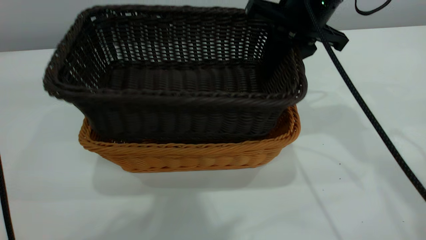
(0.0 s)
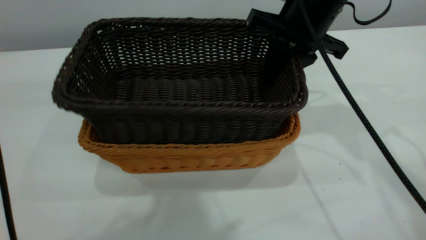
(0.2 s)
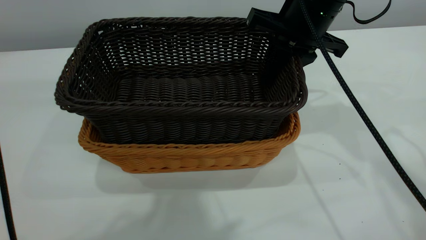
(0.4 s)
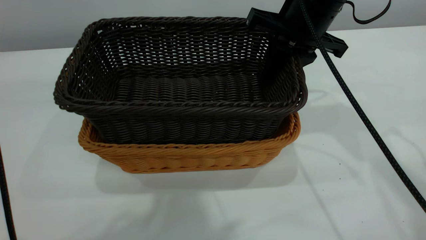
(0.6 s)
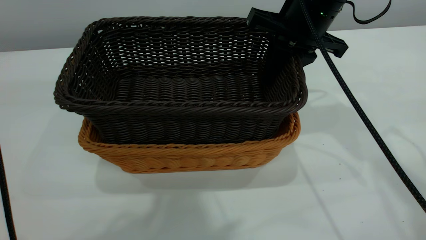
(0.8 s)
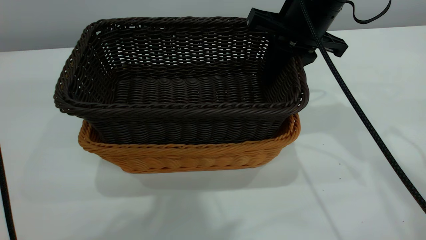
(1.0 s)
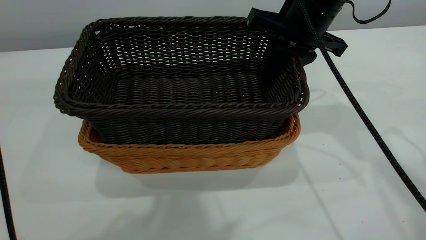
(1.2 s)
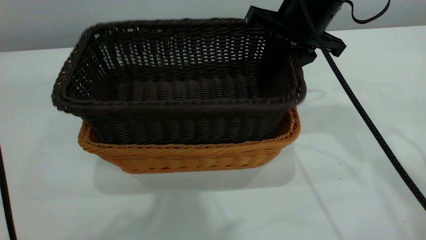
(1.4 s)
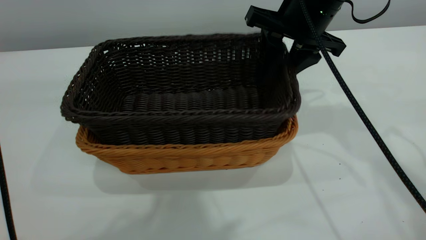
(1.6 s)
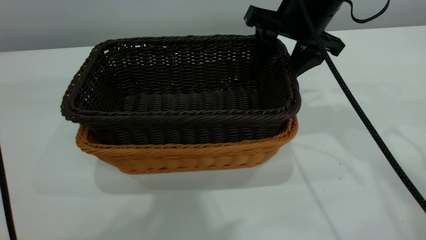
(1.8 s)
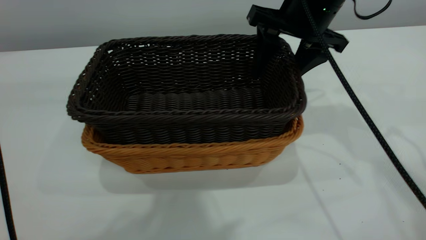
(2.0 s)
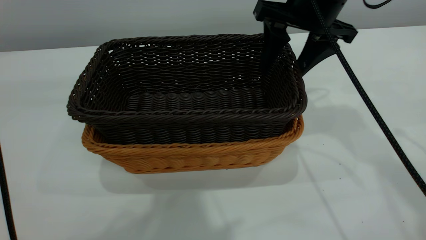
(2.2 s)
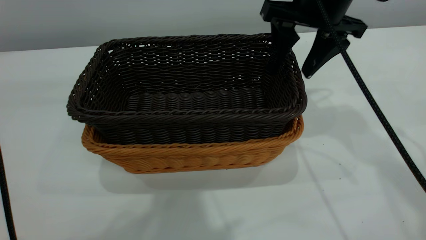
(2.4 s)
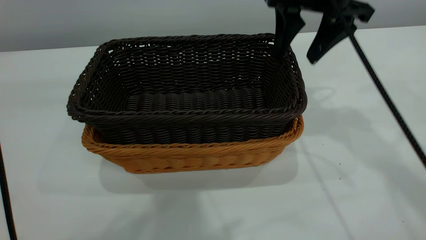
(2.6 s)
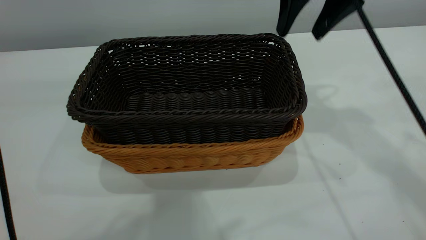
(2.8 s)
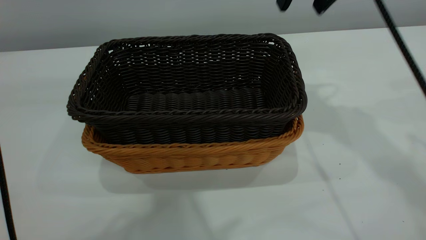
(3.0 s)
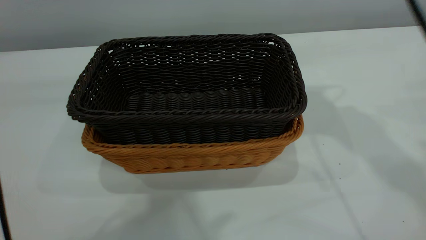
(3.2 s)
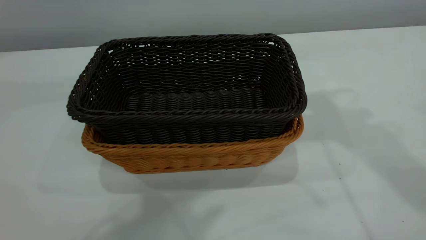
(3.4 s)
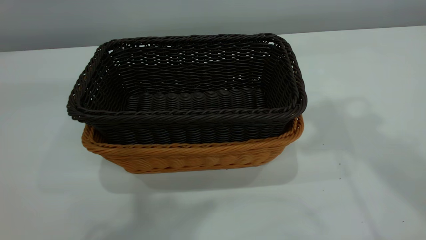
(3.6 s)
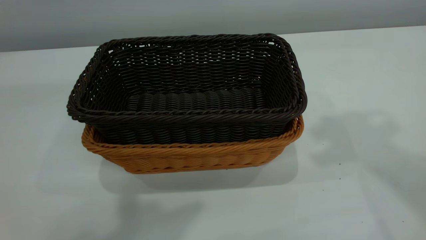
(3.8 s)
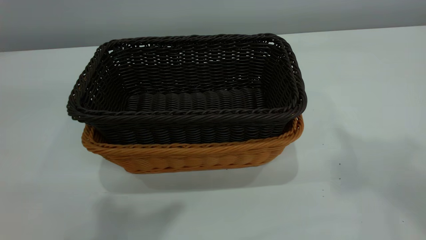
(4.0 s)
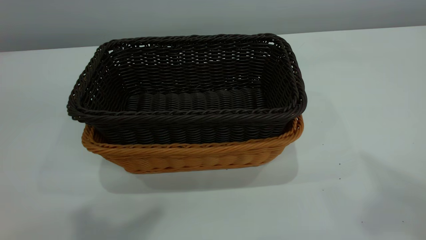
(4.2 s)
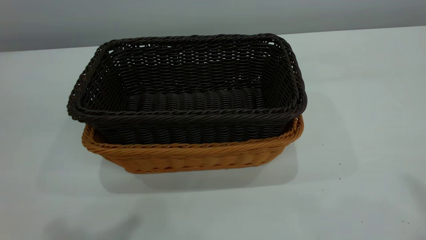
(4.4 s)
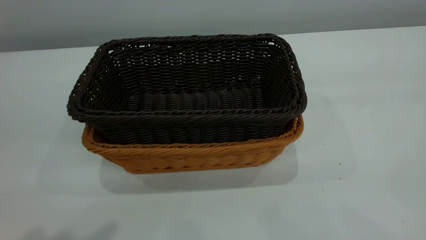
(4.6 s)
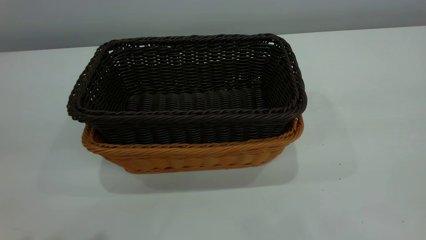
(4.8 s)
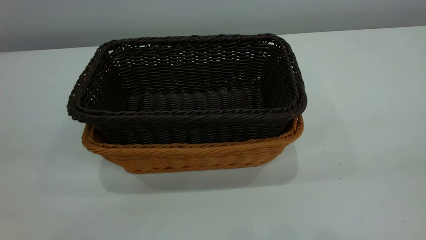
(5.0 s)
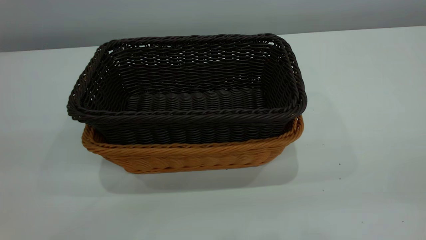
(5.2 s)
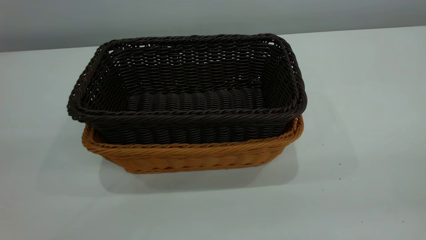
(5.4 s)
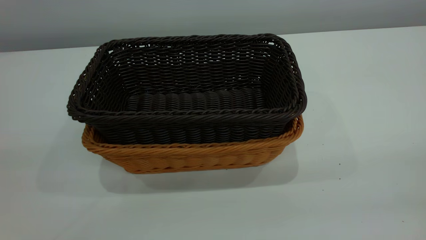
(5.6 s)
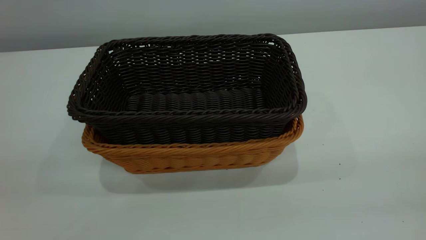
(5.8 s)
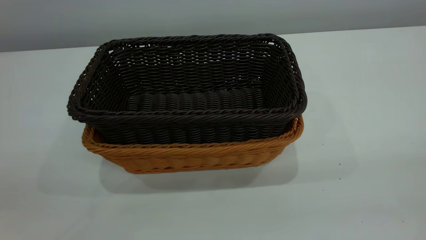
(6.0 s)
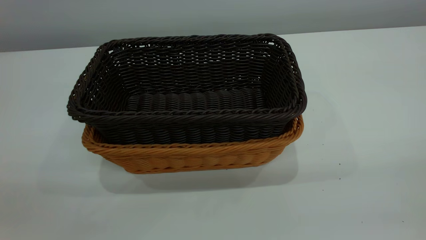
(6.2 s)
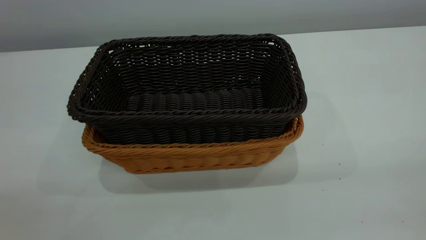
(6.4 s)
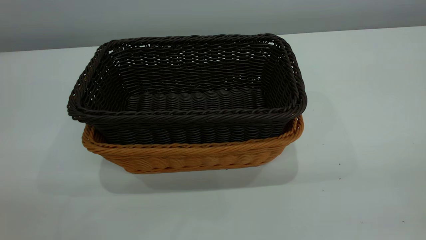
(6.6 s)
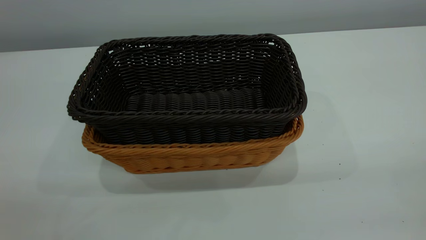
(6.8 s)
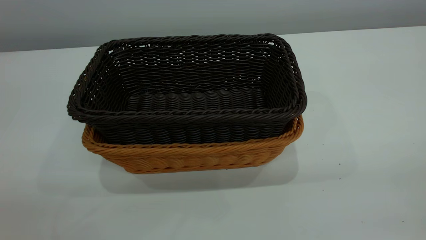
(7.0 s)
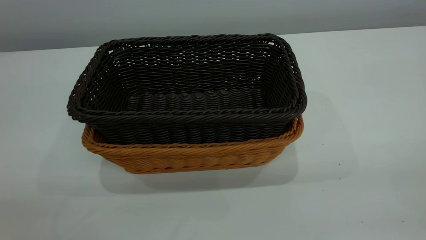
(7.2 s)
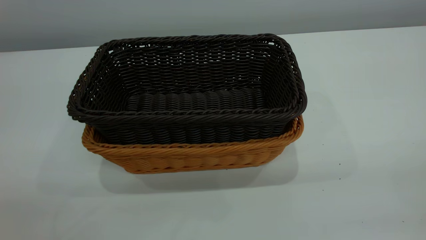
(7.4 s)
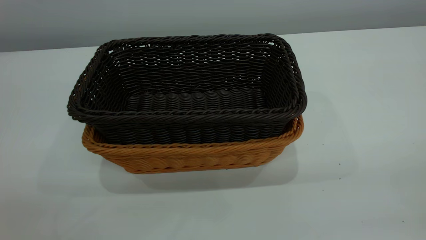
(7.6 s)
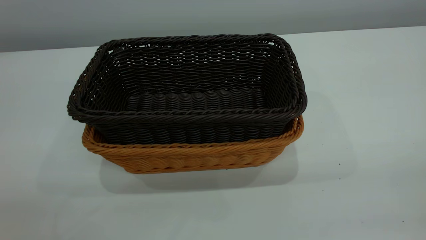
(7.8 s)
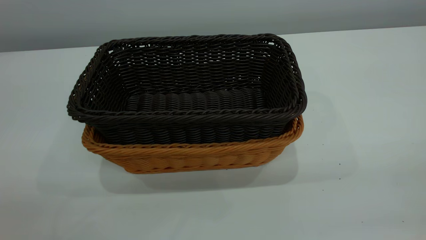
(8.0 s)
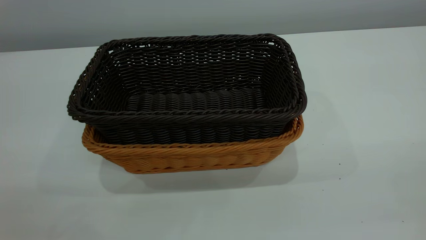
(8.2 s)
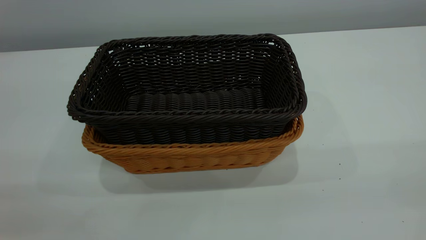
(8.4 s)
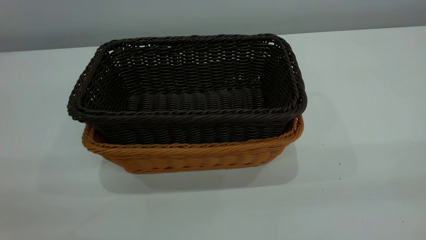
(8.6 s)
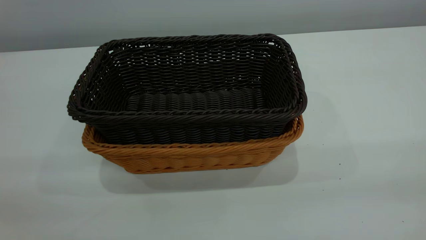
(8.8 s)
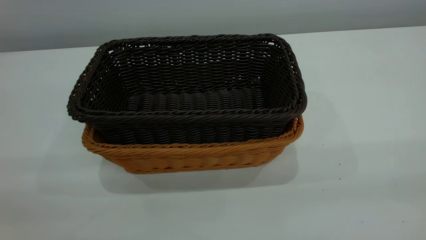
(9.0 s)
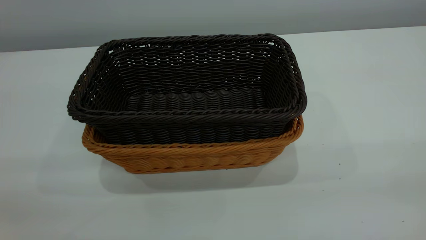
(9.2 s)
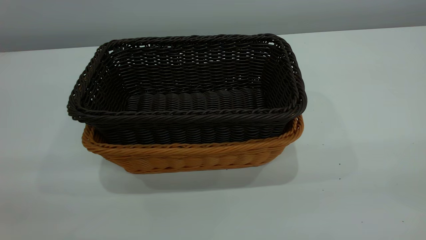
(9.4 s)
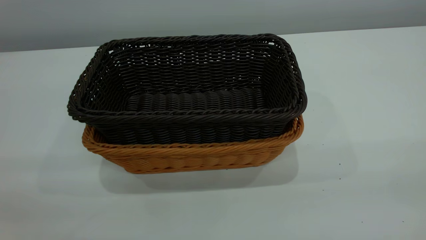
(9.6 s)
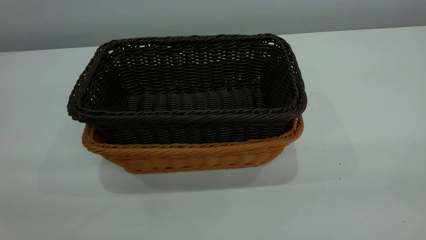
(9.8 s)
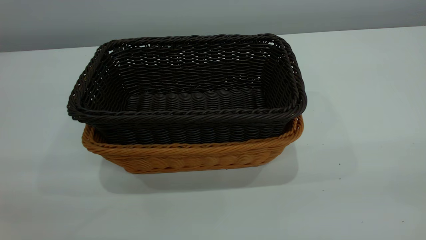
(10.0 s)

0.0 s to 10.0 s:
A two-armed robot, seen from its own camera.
Task of the whole recording: the left gripper grasp the brown basket and place it in the center of the table, the right gripper grasp the black basket and place it inside the brown one.
Step, 0.0 to 2.4 s: Place the dark basket on top of the light basket.
0.0 to 1.4 s: Both grippers stay about where they are.
1.4 to 2.8 s: The right gripper is displaced upward by roughly 10 cm, and opens its fingers.
2.8 to 4.2 s: The right gripper travels upward and backward by about 30 cm, and closes up, while the left gripper is displaced to the left and backward by roughly 10 cm, and closes.
4.2 to 5.8 s: The left gripper shifts approximately 15 cm backward, to the left and downward.
